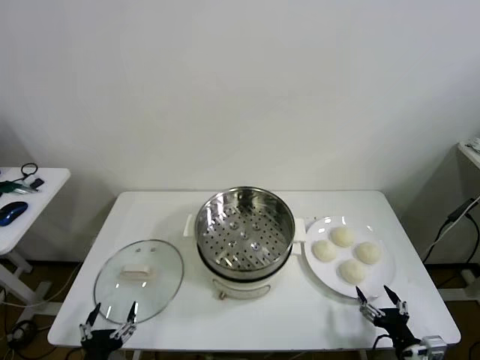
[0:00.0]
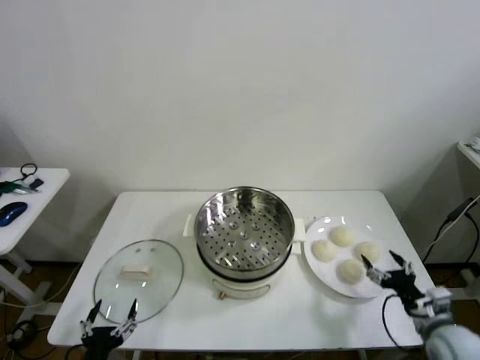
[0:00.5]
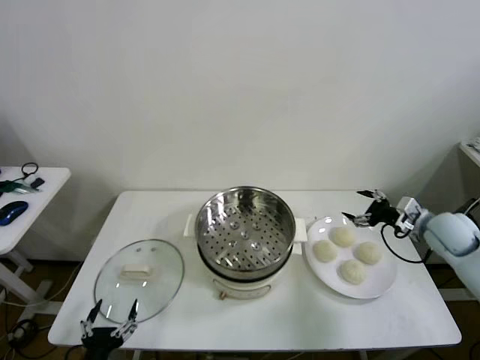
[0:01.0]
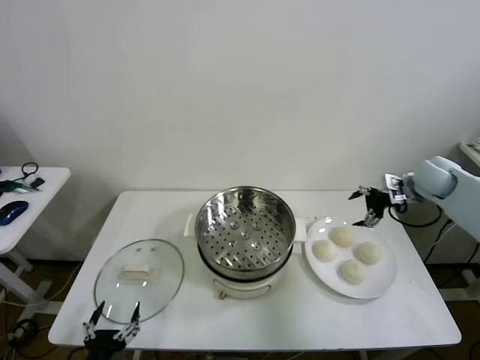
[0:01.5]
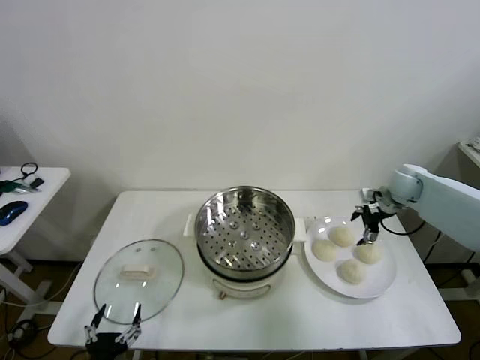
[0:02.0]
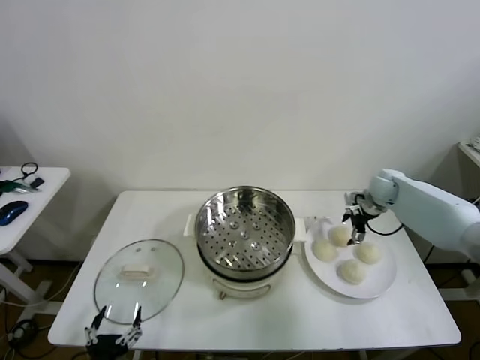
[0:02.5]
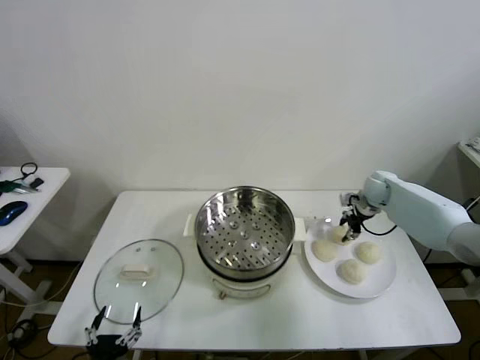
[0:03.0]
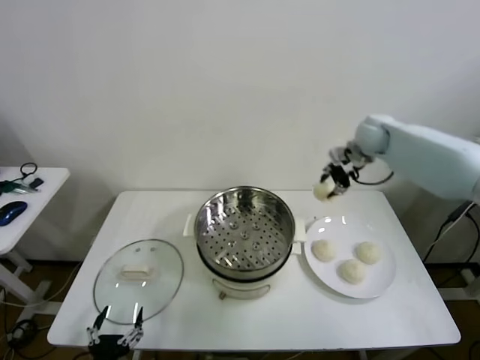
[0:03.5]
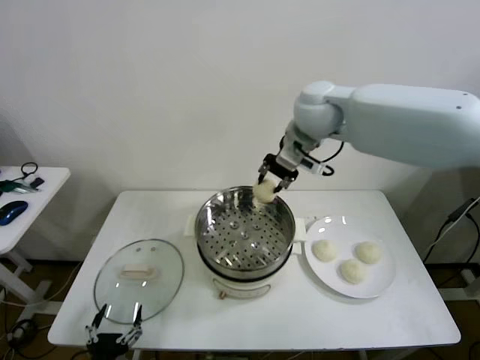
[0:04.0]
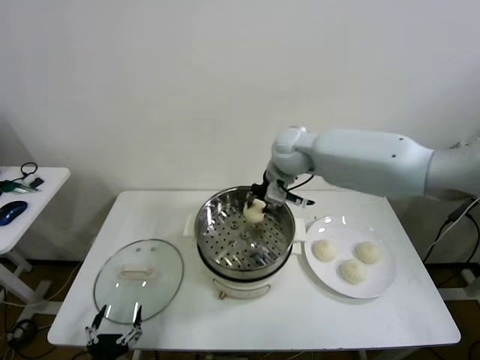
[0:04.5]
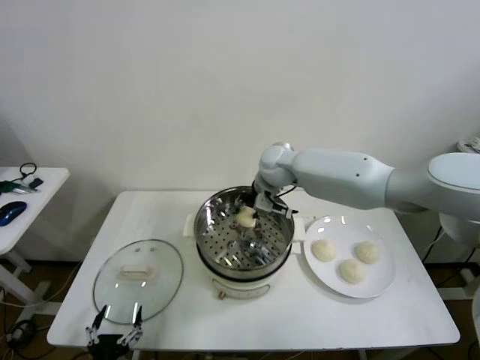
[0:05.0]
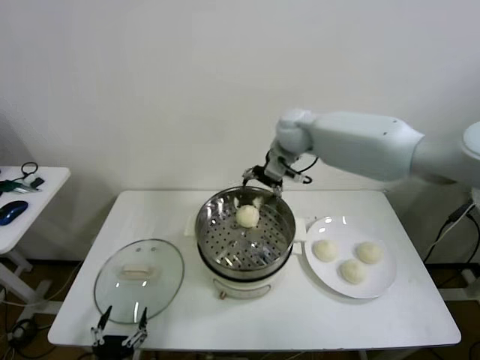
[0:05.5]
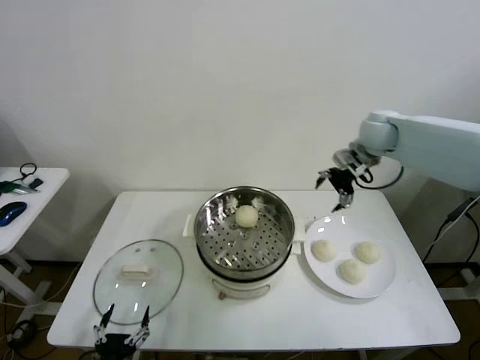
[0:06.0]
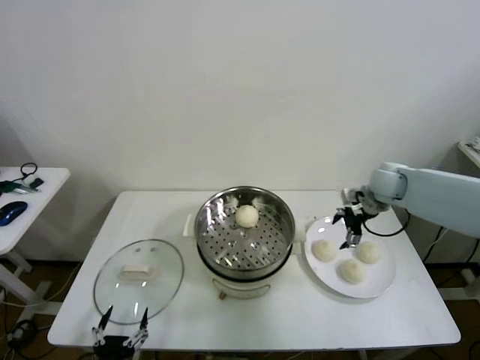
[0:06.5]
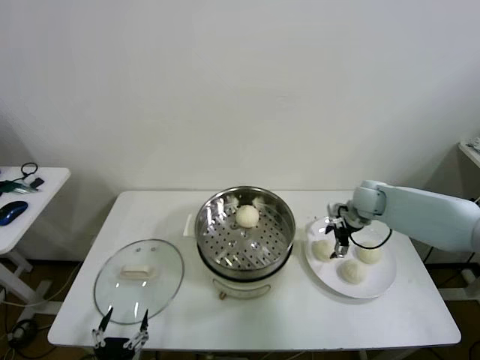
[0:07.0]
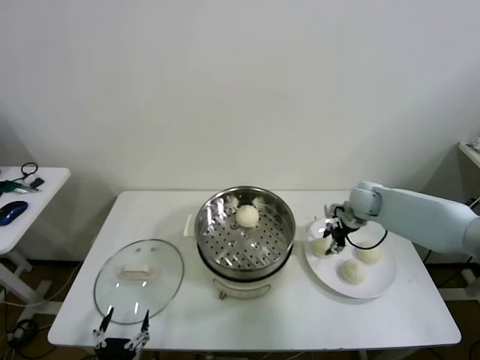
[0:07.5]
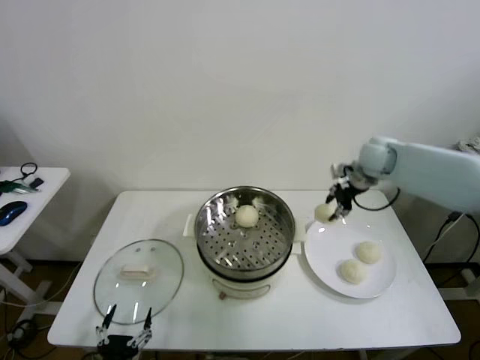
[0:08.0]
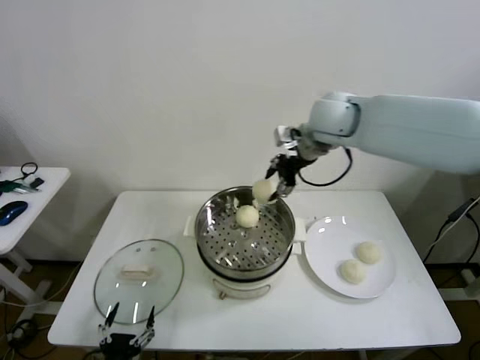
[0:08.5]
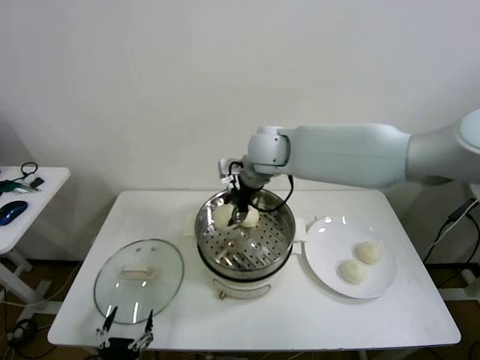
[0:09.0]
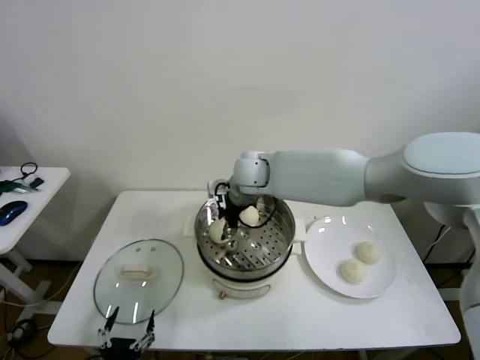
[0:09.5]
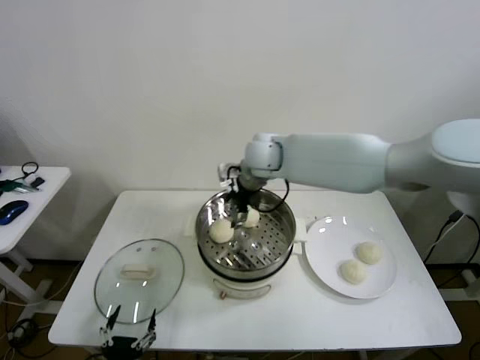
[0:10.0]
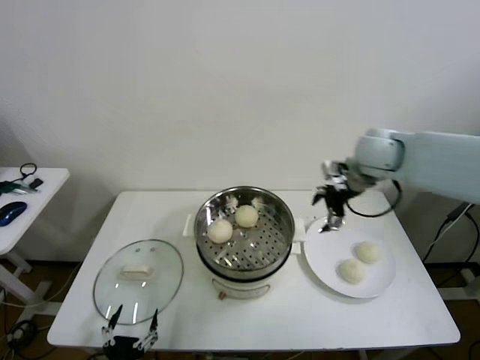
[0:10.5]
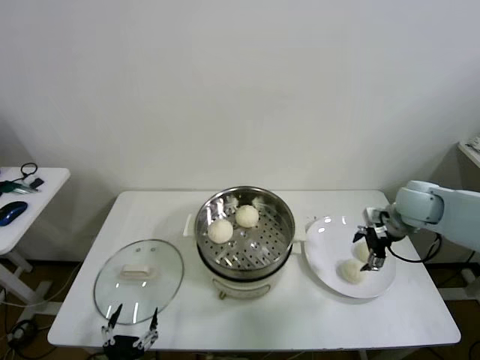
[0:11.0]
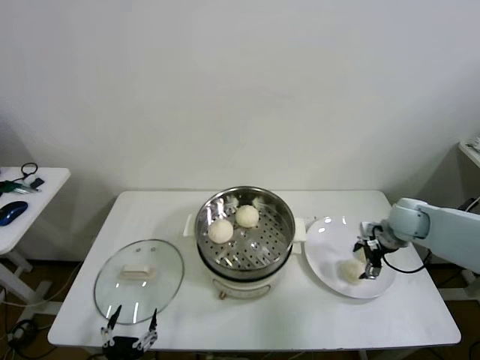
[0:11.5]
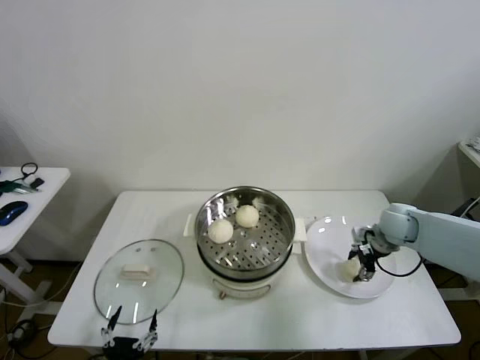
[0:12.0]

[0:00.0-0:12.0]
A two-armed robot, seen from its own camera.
Step, 0:00.0 to 0:02.5: Grasp the baozi in the plate with right gripper.
Step, 0:03.0 to 0:05.0: Place the baozi on the steamer with right gripper.
Step, 0:05.5 to 0:07.0: Grasp the baozi in the plate with right gripper.
Step, 0:07.5 to 0:09.5: Place the baozi on the steamer with right gripper.
Step, 0:10.0 to 0:12.0: Grasp the baozi in the plate with right gripper.
0:02.0 to 0:04.0: The right gripper moves to the left and upward, roughly 35 cm, and closes up.
0:04.0 to 0:06.0: The right gripper goes about 25 cm to the right and downward, and opens its fingers.
0:06.0 to 0:08.0: The right gripper goes downward and returns, some 15 cm each way, and closes.
0:08.0 to 0:10.0: The right gripper goes roughly 25 cm to the left, and opens up.
0:10.0 to 0:12.0: The right gripper is displaced to the right and downward by roughly 35 cm, and closes up.

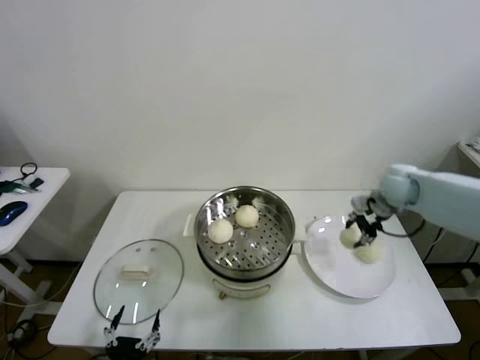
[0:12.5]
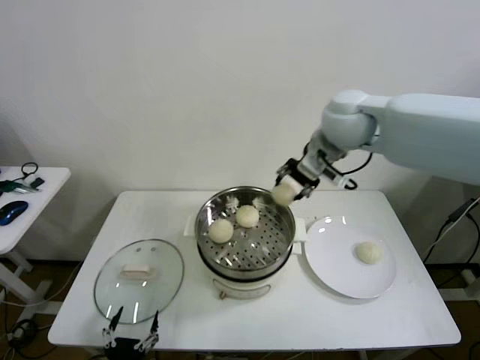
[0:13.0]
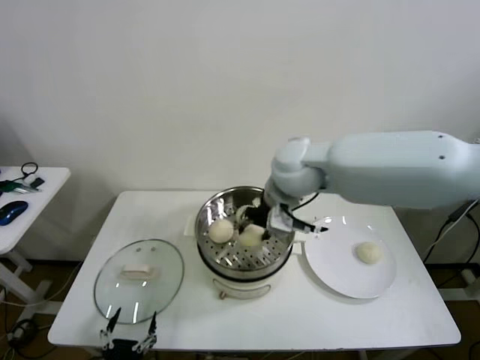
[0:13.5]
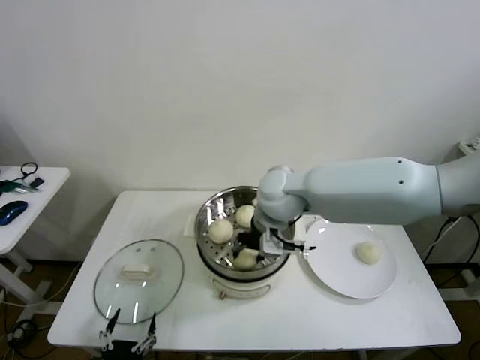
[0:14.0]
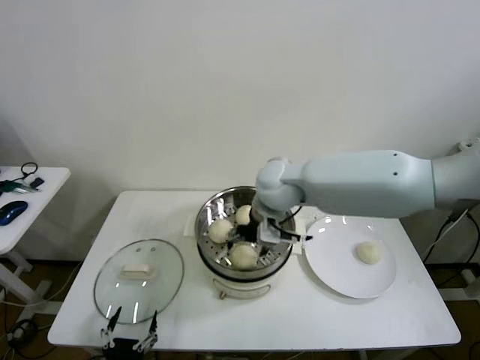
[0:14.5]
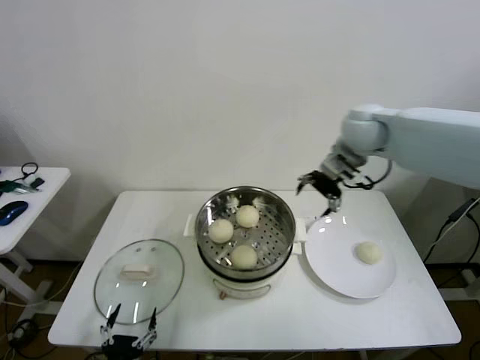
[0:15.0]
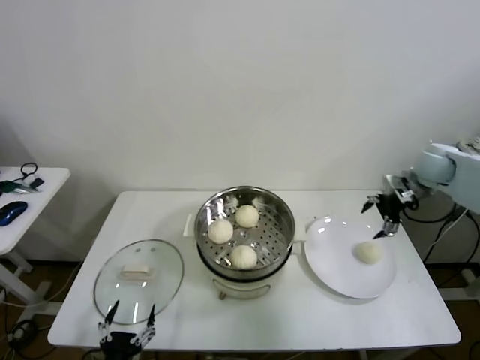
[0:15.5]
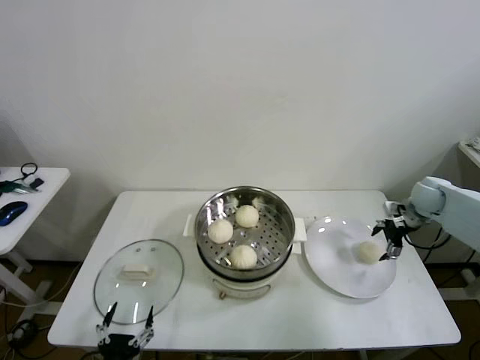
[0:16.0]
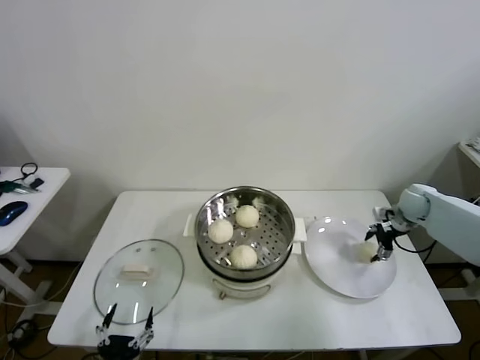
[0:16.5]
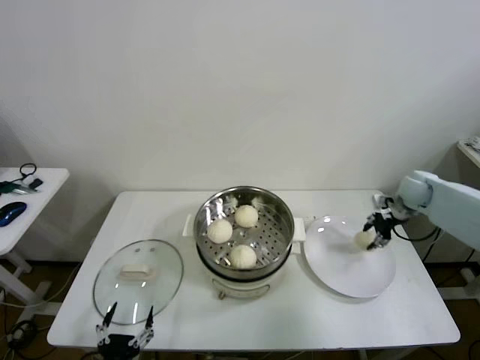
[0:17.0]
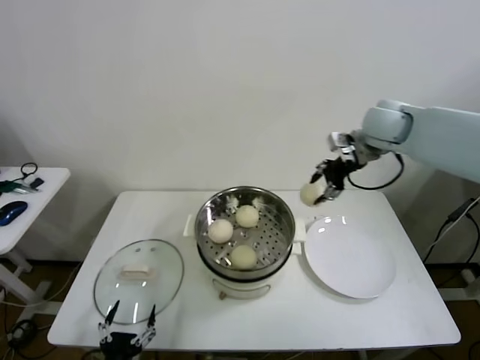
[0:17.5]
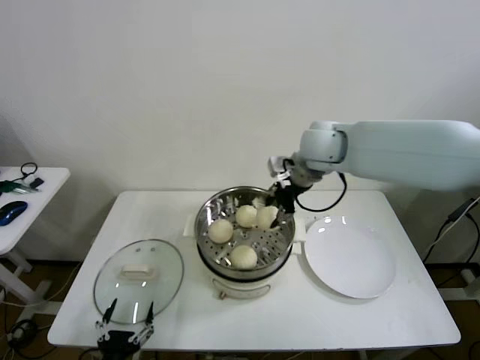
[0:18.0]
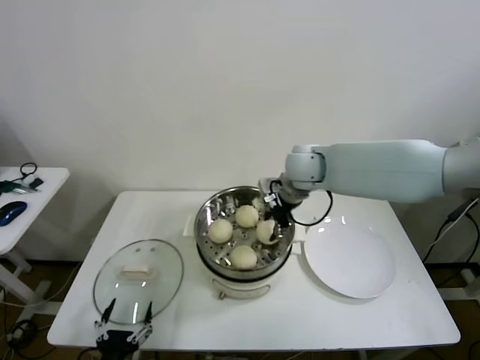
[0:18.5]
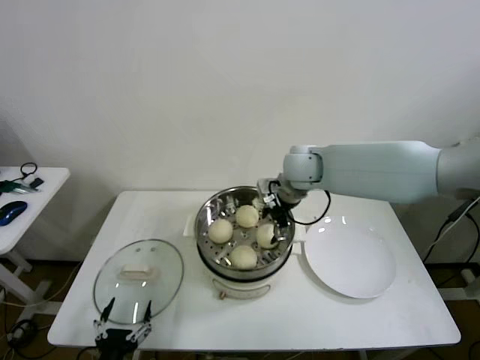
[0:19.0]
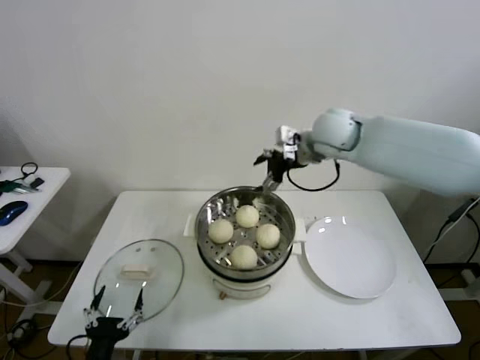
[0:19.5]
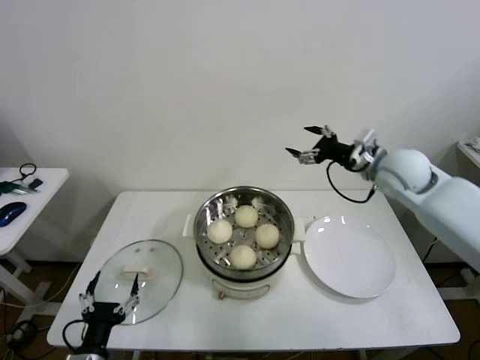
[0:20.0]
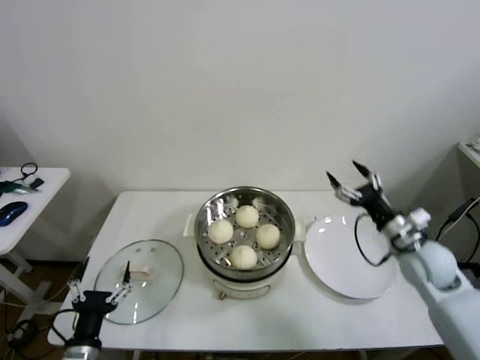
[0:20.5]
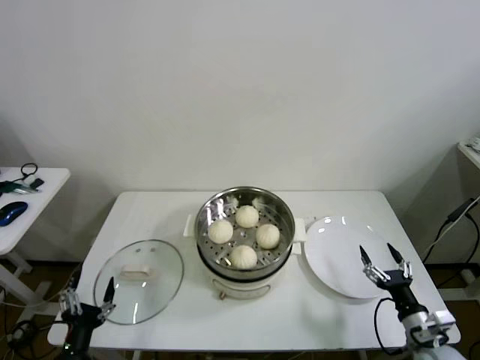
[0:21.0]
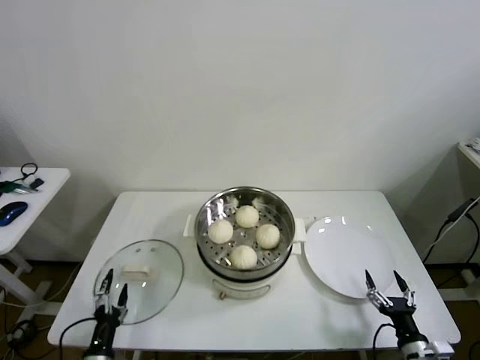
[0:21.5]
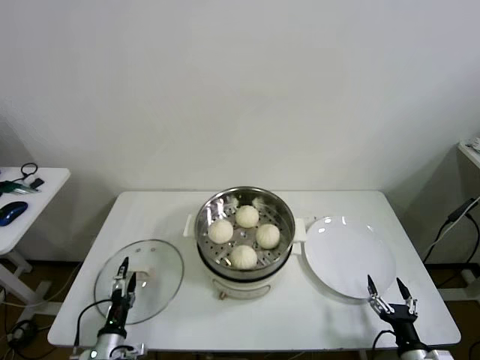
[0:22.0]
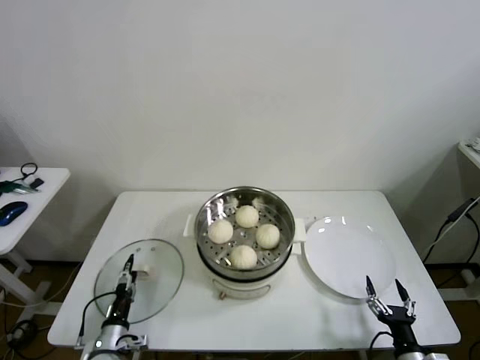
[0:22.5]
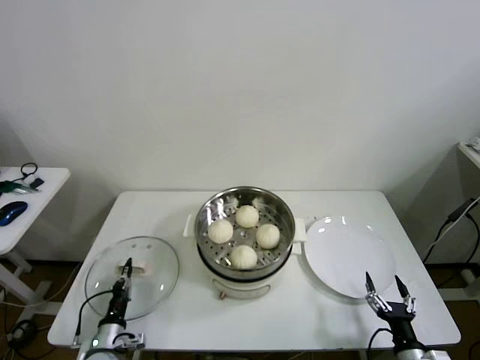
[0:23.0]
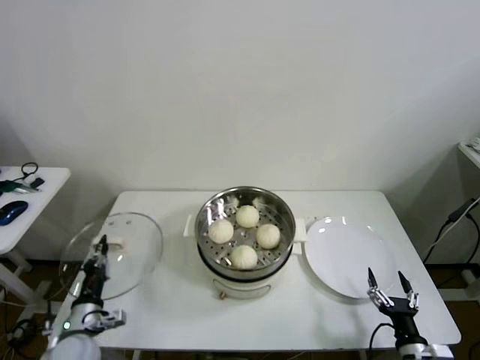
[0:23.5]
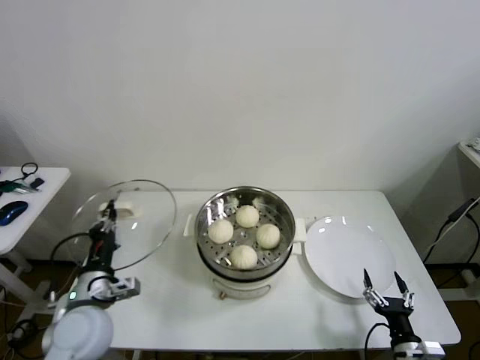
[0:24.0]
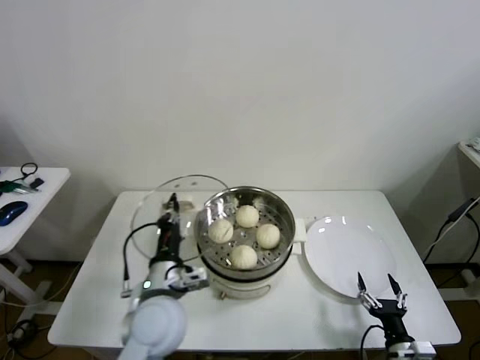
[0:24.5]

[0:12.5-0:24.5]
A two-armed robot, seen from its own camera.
Step, 0:12.5 to 0:14.0: Place the baozi on the steamer with right gripper.
Step, 0:14.5 to 0:16.5: Grasp the baozi in the plate with right gripper.
Step, 0:17.0 to 0:18.5: Place the baozi on the steamer with right gripper.
Step, 0:19.0 to 0:22.5: Grasp the pot lid with left gripper.
0:12.5 to 0:14.5: The right gripper is displaced to the left by some 30 cm, and opens.
0:14.5 to 0:16.5: The right gripper moves to the right and downward, some 40 cm.
0:16.5 to 0:18.5: The right gripper travels to the left and upward by approximately 35 cm.
0:18.5 to 0:20.5: The right gripper heads to the right, backward and downward, covering roughly 35 cm, and opens. Meanwhile the left gripper heads forward, covering about 5 cm.
0:20.5 to 0:22.5: The right gripper travels backward and downward by about 30 cm, while the left gripper heads downward and forward, covering approximately 15 cm.
0:22.5 to 0:24.5: The left gripper shifts approximately 30 cm upward and to the right, and closes up.

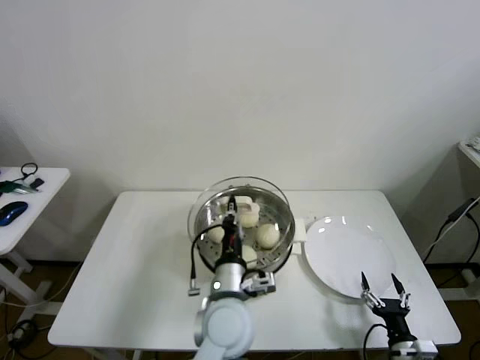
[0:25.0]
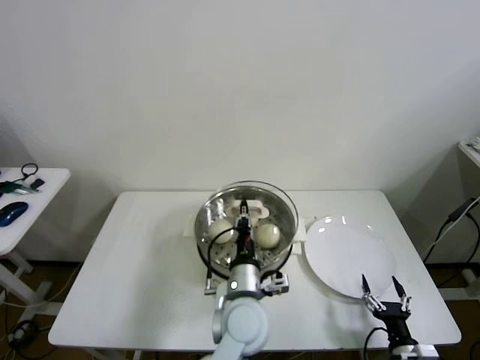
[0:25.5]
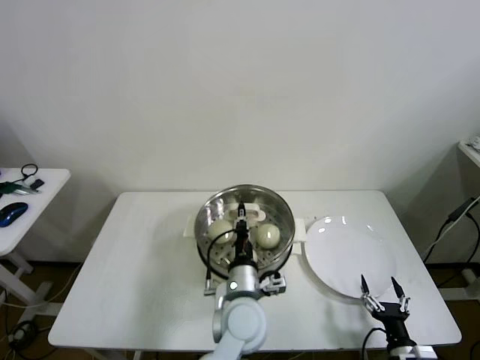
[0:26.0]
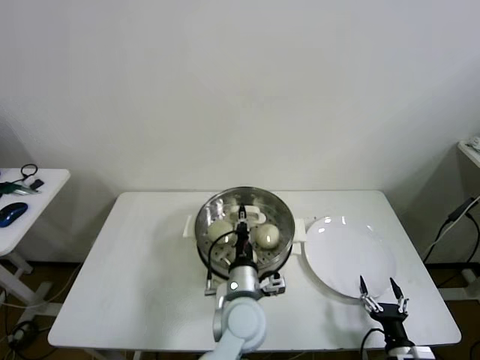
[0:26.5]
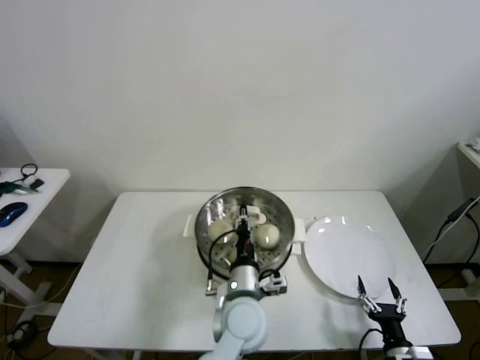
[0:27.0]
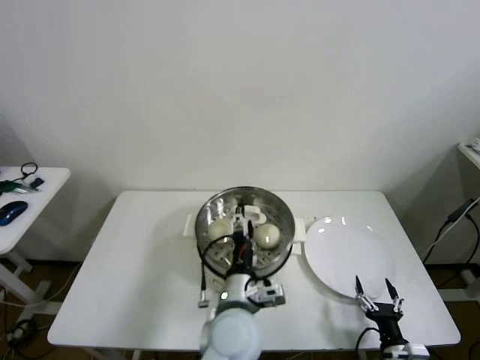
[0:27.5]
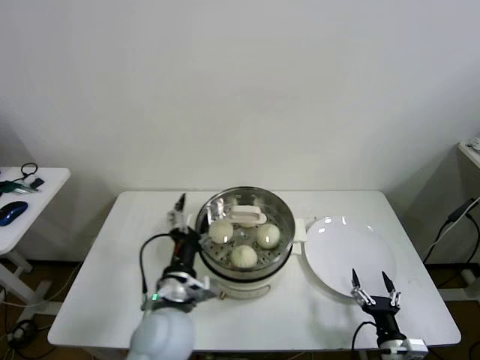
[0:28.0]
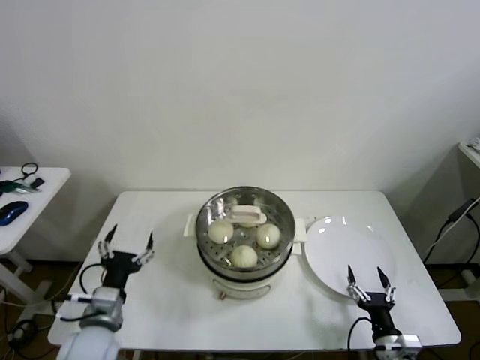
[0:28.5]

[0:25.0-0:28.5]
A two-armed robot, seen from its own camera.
0:25.0 to 0:27.0: The left gripper changes place by some 5 cm.
0:27.0 to 0:28.5: The left gripper moves to the left, roughly 25 cm, and opens its fingers.
